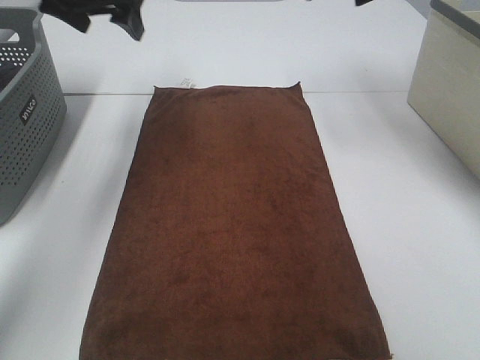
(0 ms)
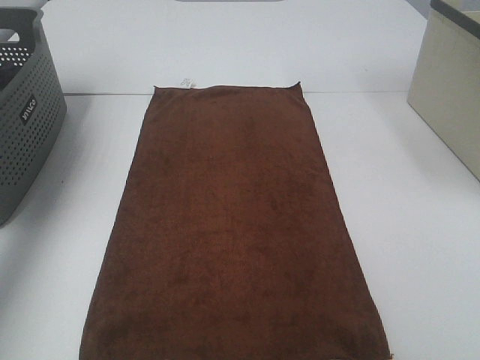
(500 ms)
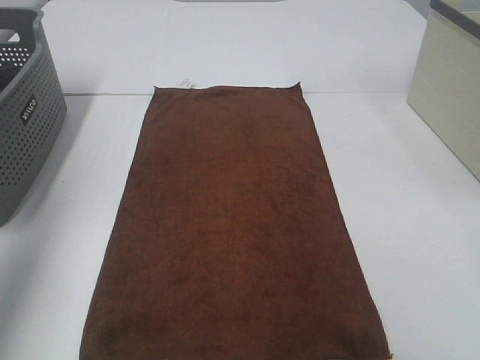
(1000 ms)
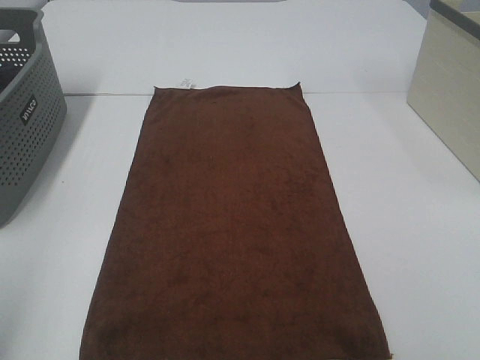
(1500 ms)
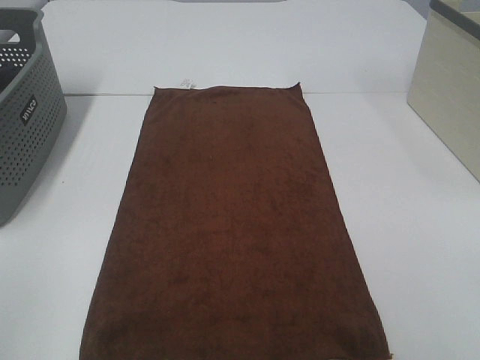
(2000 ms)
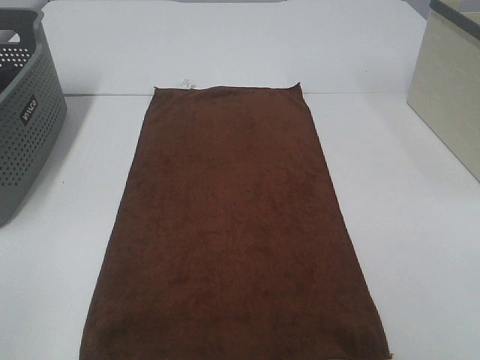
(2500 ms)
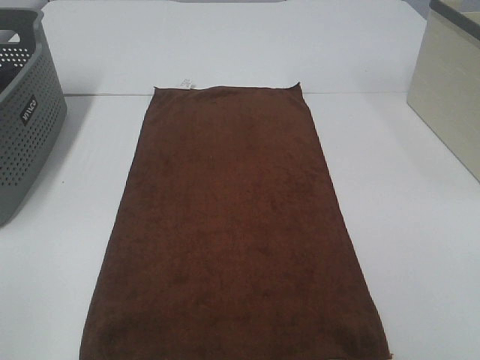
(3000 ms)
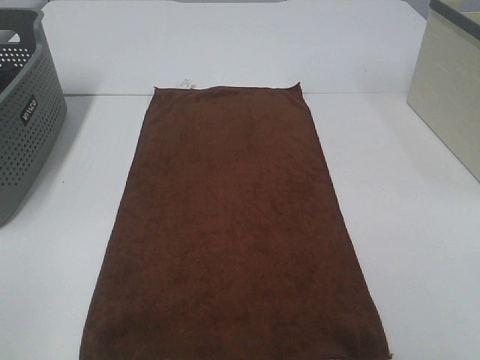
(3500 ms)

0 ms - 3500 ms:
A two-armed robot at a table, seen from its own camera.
Task of the whole recording: Remove the towel and place it.
0 ms - 2000 ms: The grippers both shift backward by approximately 50 cm.

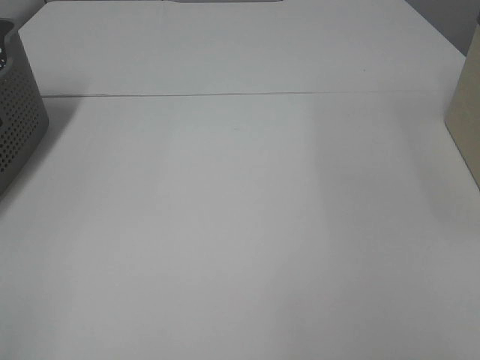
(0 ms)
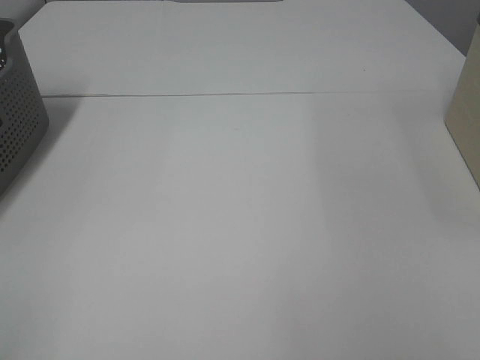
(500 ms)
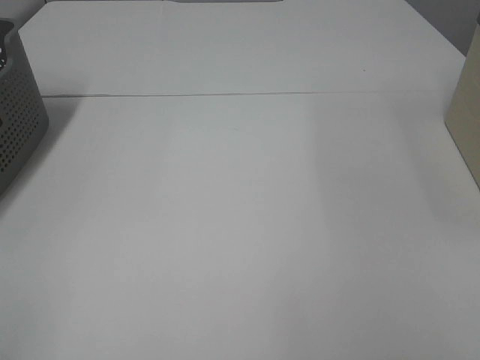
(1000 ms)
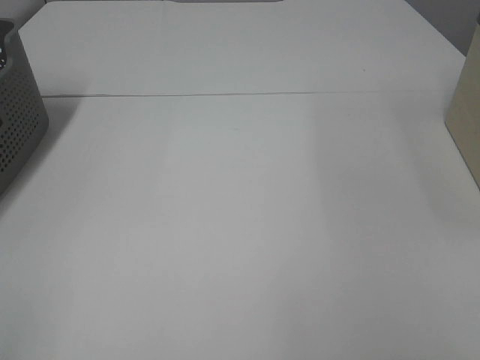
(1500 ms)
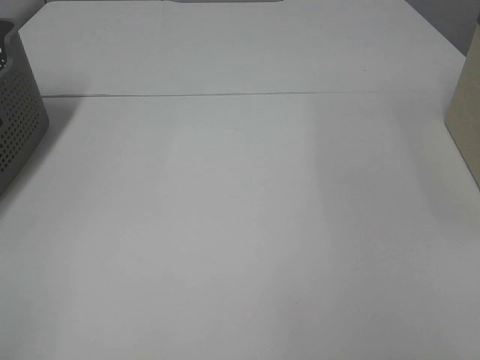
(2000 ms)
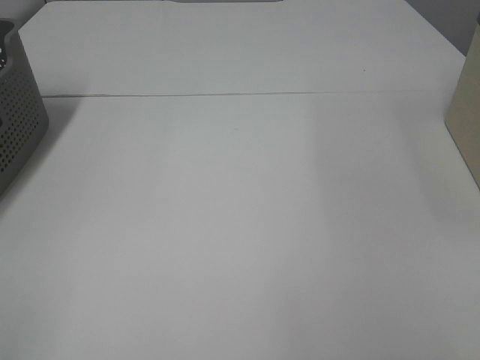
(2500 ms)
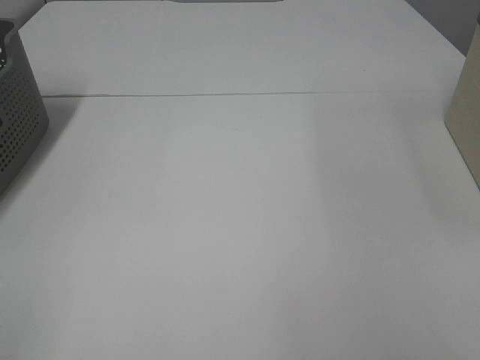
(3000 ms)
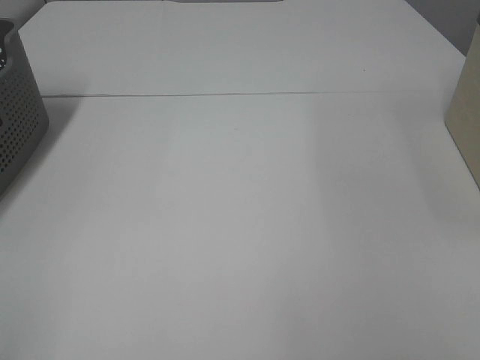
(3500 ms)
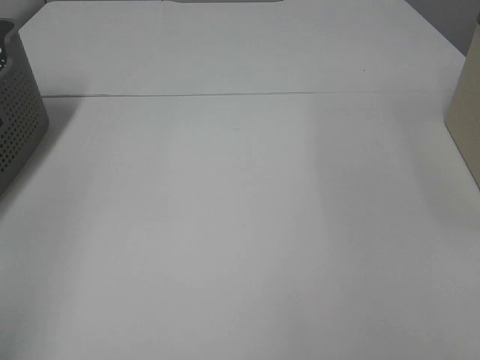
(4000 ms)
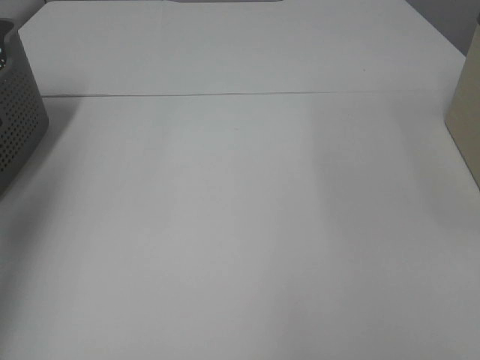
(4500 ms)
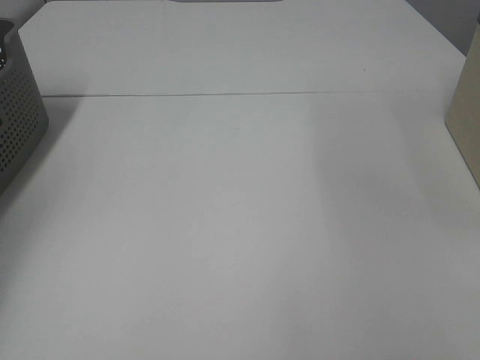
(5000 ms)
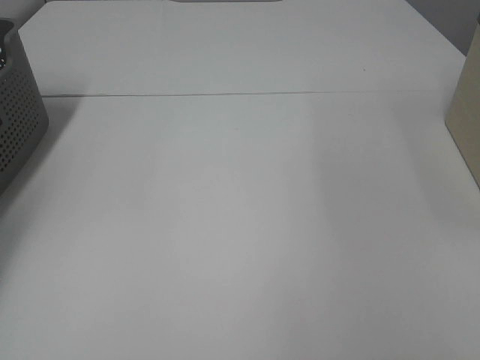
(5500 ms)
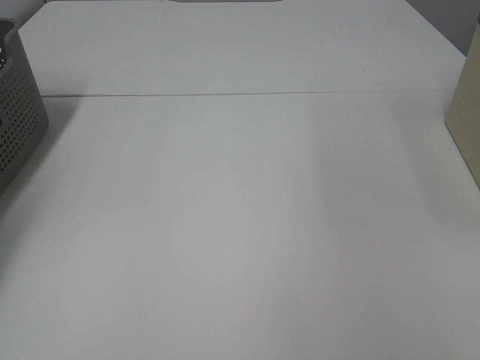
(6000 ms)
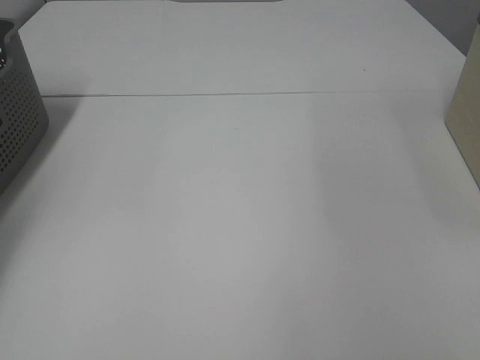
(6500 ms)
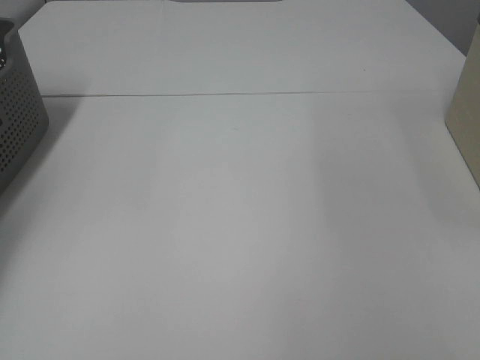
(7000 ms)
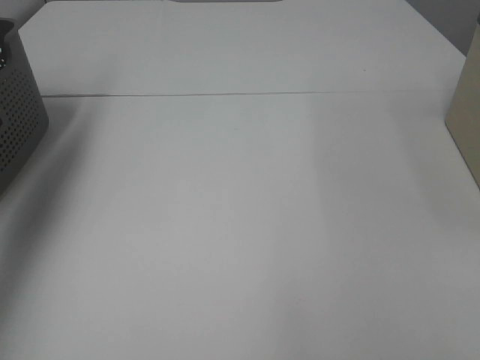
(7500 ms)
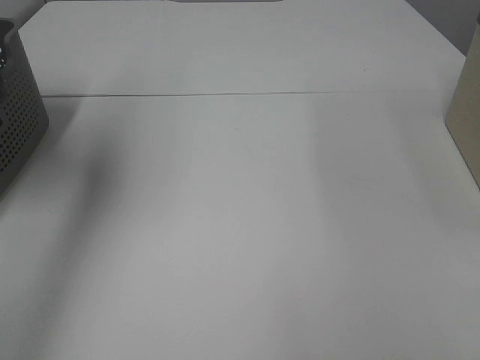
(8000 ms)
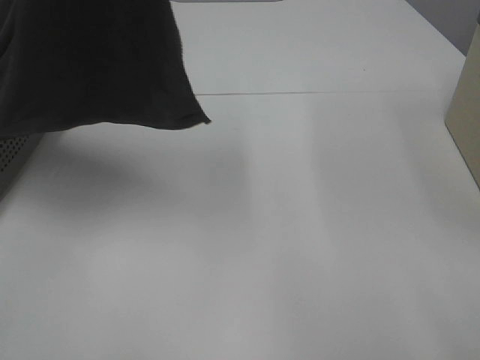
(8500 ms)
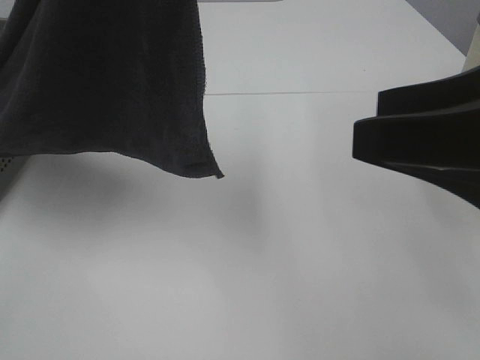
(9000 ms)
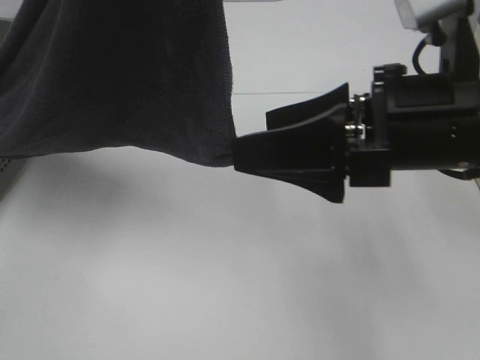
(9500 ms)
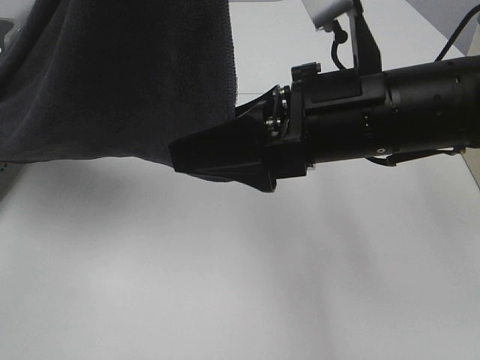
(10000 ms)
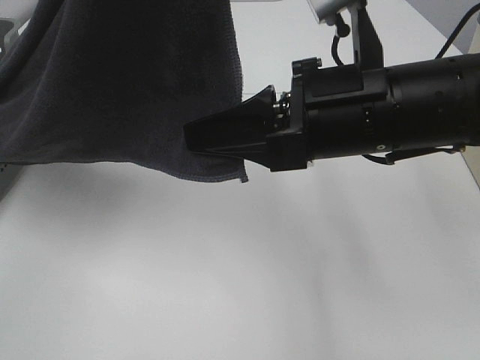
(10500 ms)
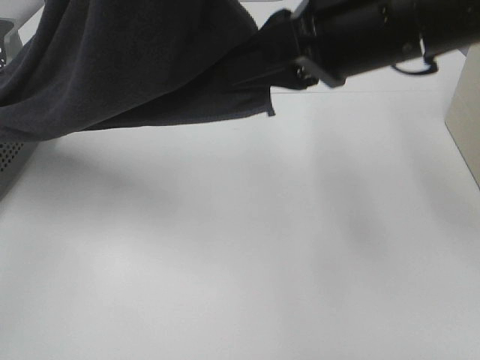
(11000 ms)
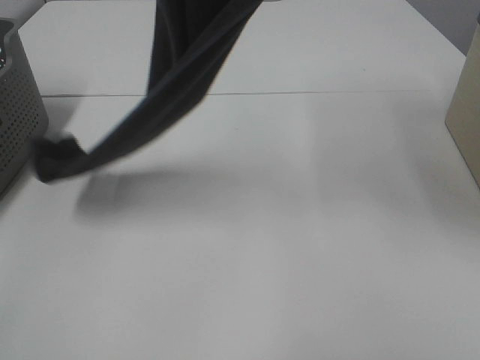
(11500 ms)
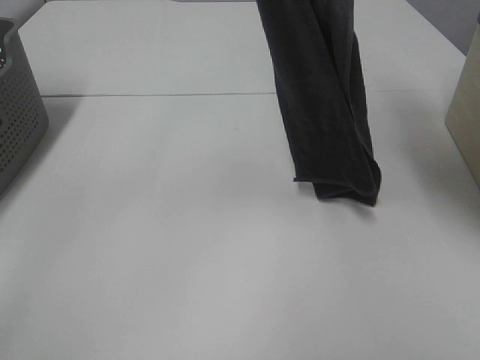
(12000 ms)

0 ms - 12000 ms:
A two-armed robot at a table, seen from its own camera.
Task of the whole recording: Remove the towel and place it.
Step, 7500 ms - 10000 ms: Right hand: grab a corner of the grey towel and straighten it.
0 ms - 2000 ms: The two grippers keep their place.
4000 ms - 6000 ms: The left gripper heads forward and downward, covering approximately 40 cm, and closes up.
6000 ms - 8000 ms: The left gripper goes about 40 cm upward, to the right and backward, and closes.
8000 ms - 10000 ms: The left gripper heads to the right and backward, covering approximately 20 cm. Meanwhile the right gripper moves forward and to the left, about 30 cm.
10000 ms - 12000 ms: The right gripper shifts roughly 30 cm upward and forward, and closes its fingers, while the left gripper travels forward by some 15 cm.

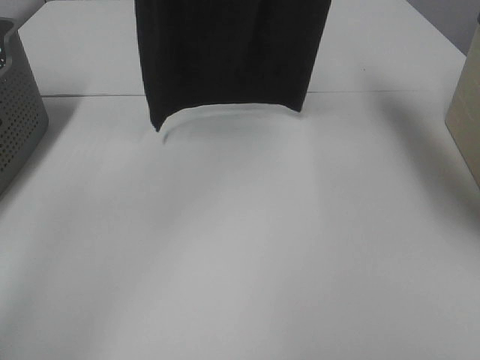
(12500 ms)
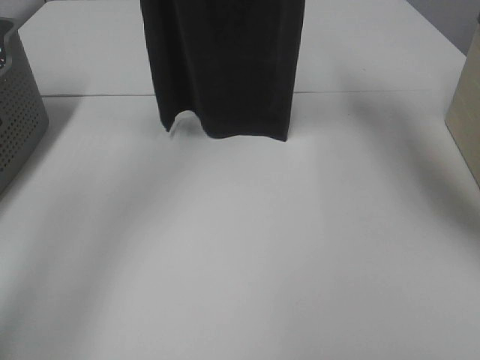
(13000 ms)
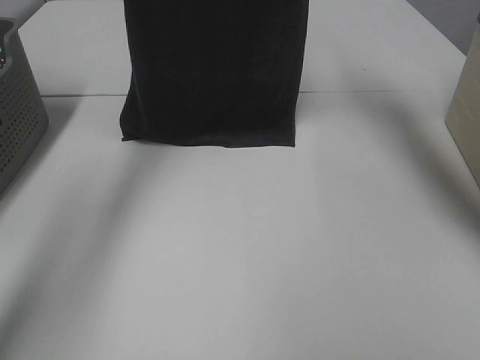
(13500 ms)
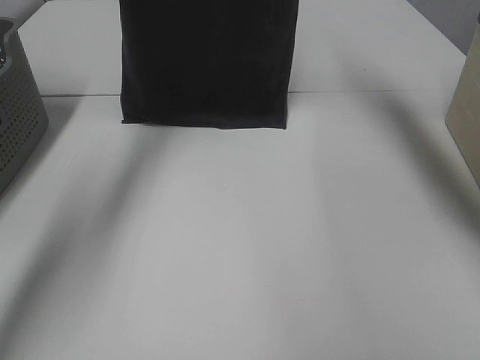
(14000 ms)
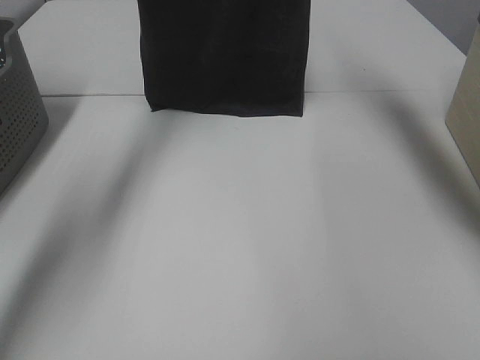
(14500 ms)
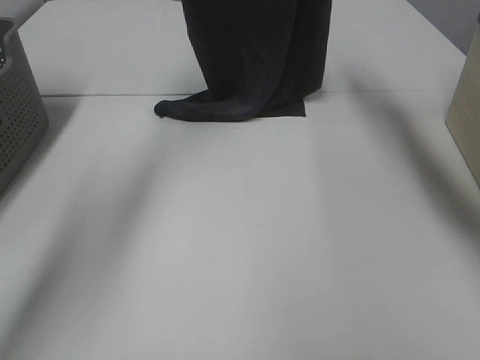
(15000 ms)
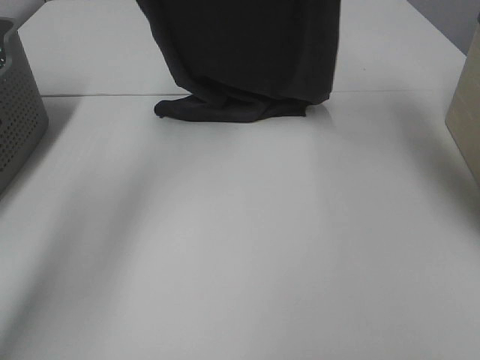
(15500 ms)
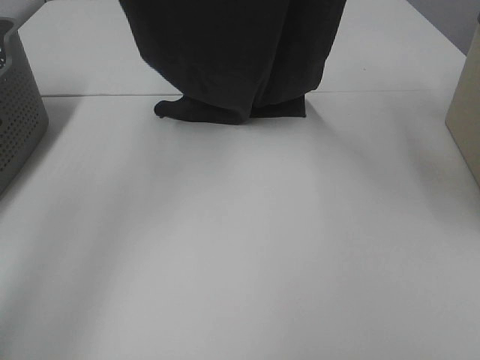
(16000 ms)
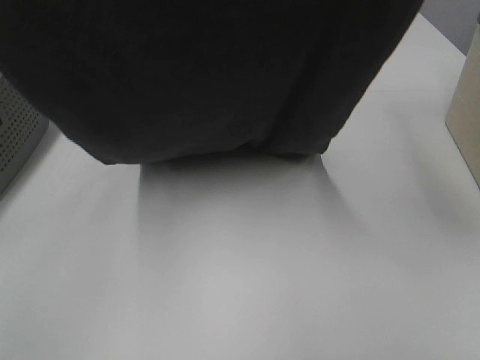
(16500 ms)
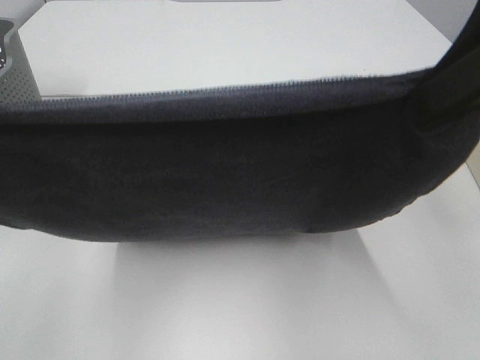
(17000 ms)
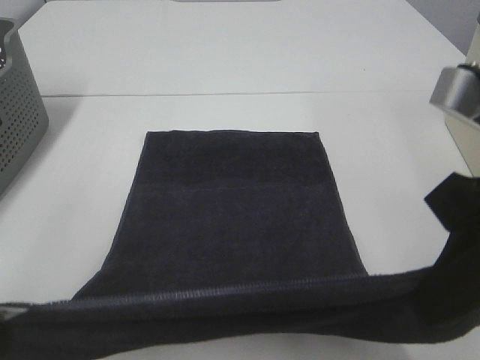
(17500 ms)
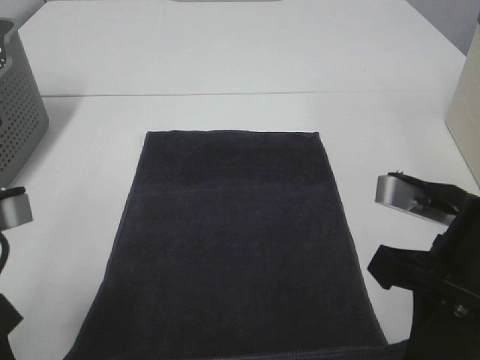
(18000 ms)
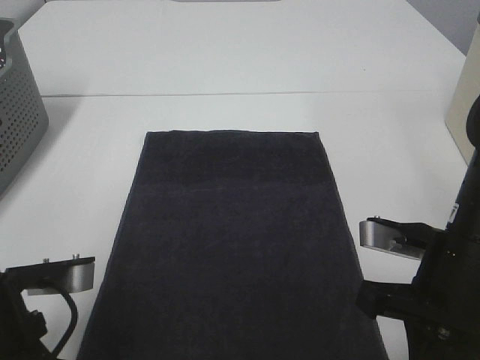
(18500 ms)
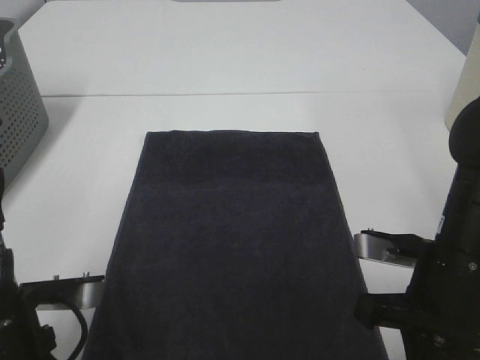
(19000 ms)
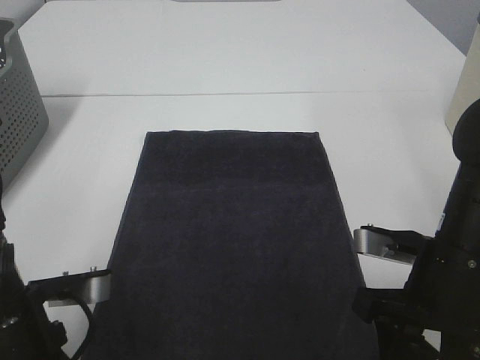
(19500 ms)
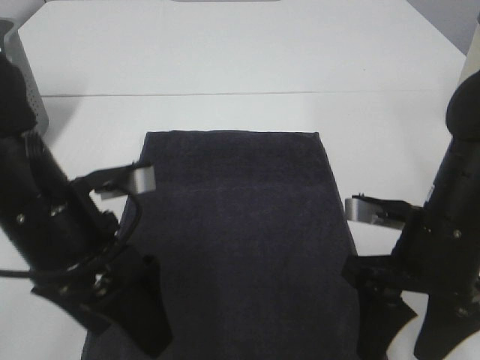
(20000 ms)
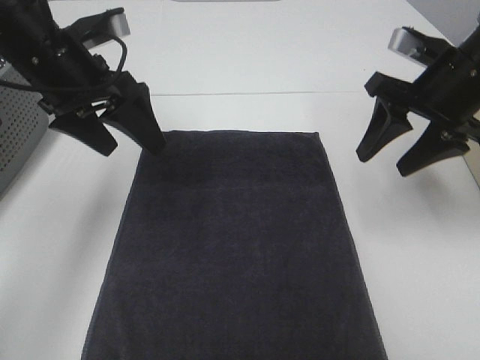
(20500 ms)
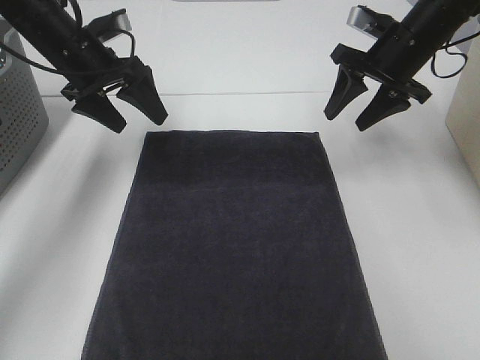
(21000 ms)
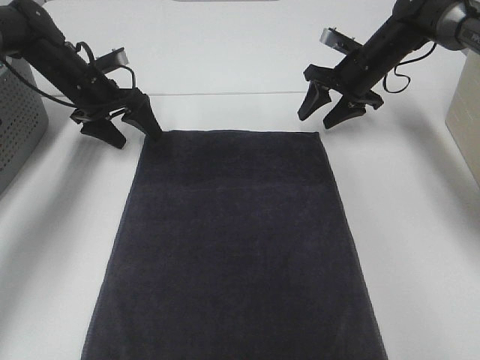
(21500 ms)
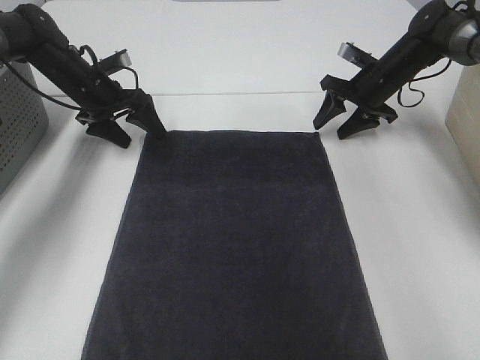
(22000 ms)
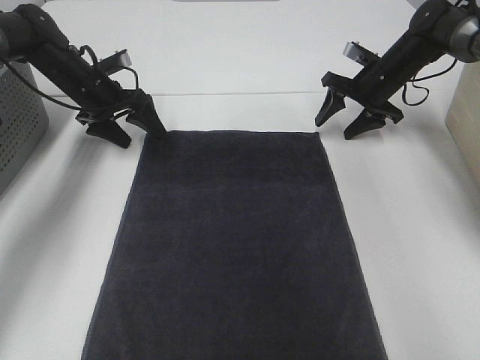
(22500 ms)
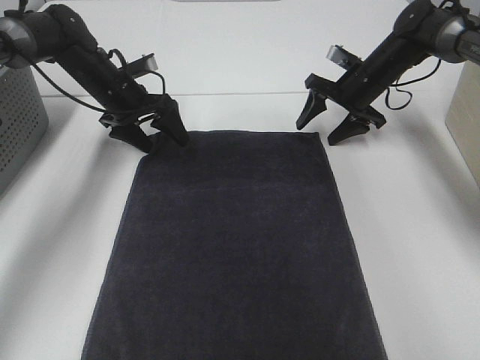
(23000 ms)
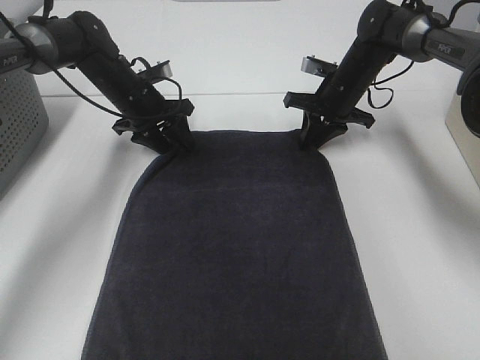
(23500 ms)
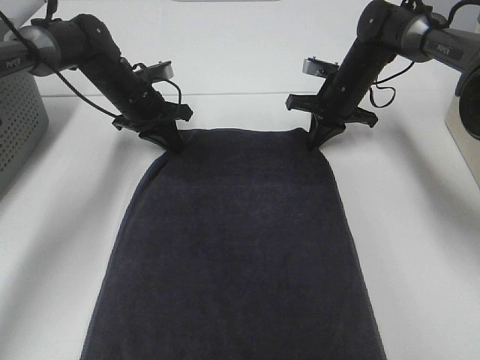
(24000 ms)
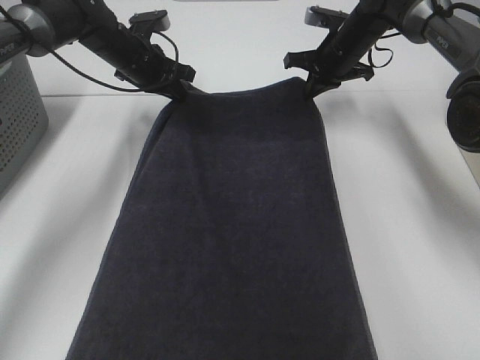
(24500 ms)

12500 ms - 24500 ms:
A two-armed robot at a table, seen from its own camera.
Task of the whole recording: Remove the towel and place it.
Step, 12500 ms - 15500 ms: Left hand: spread the grey towel flat on the table.
Step, 12500 ms - 15500 ms: Right hand: spread the grey towel flat on the table.
Step, 16000 ms - 21500 ms: Left hand:adjust the gray towel.
Step, 16000 ms - 21500 ms: Right hand:adjust the gray towel.
12500 ms - 14500 ms: Both grippers move forward and downward, about 15 cm.
14500 ms - 16500 ms: The two grippers go approximately 30 cm backward.
16500 ms - 18500 ms: The grippers both shift downward by roughly 30 cm.
18500 ms - 20500 ms: The grippers both shift forward and upward by some 20 cm. The left gripper opens its fingers, while the right gripper opens.
20500 ms - 22500 ms: The two grippers go about 20 cm forward and downward.
22500 ms - 24500 ms: The right gripper goes approximately 5 cm to the left, and closes; the left gripper goes roughly 5 cm to the right, and closes its fingers.
